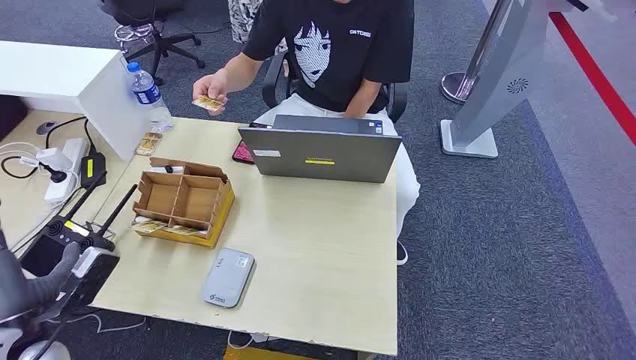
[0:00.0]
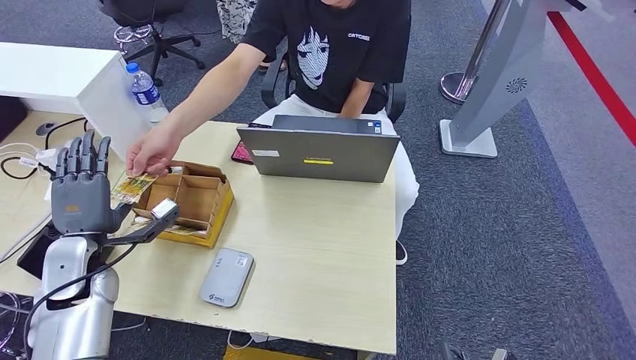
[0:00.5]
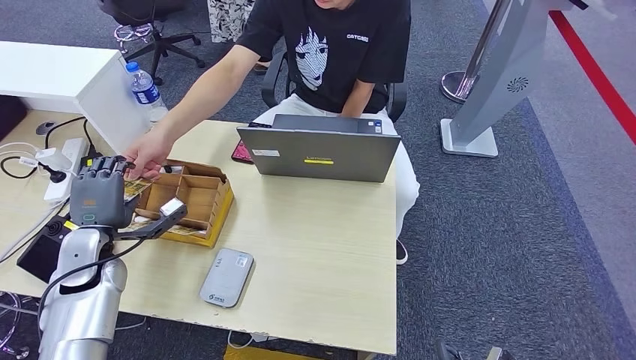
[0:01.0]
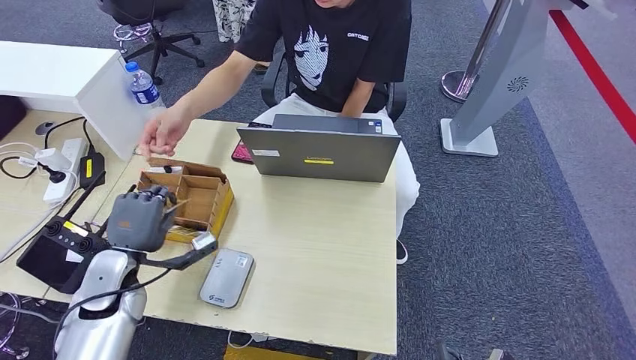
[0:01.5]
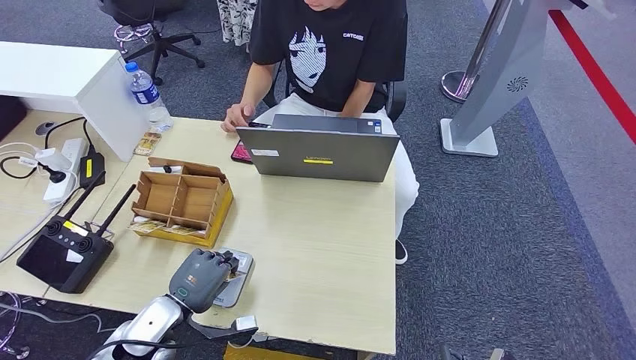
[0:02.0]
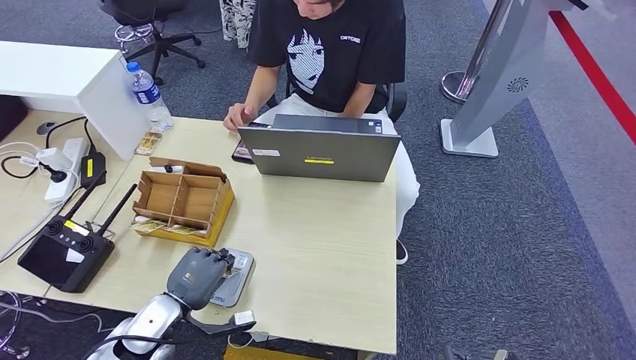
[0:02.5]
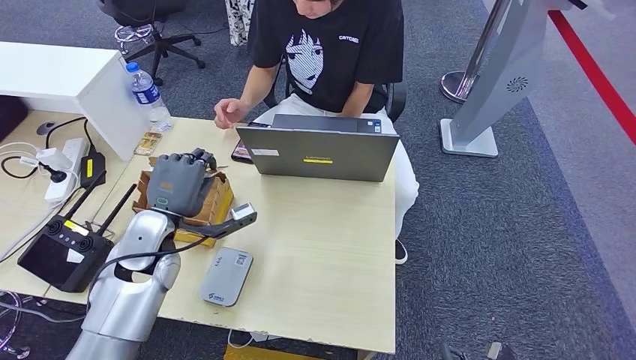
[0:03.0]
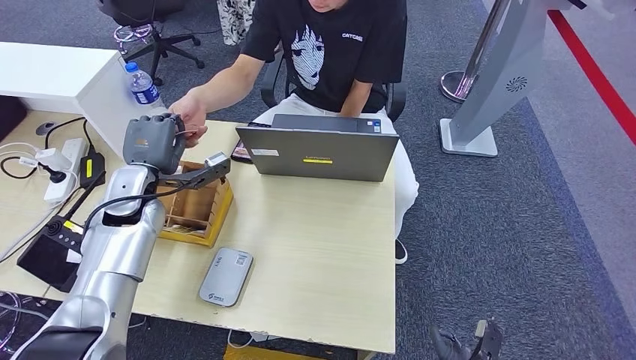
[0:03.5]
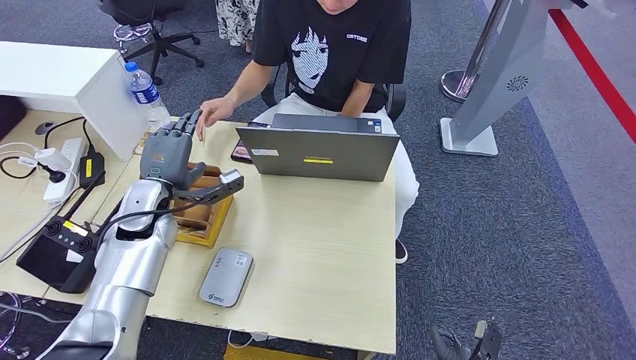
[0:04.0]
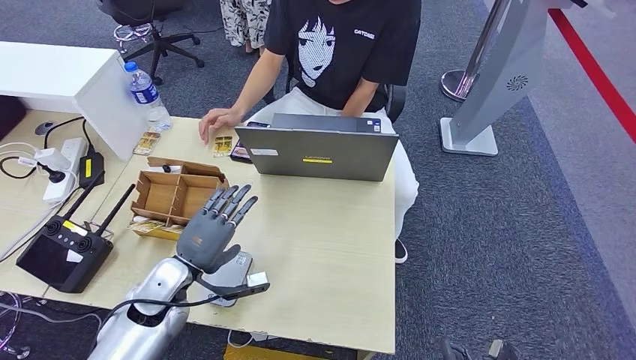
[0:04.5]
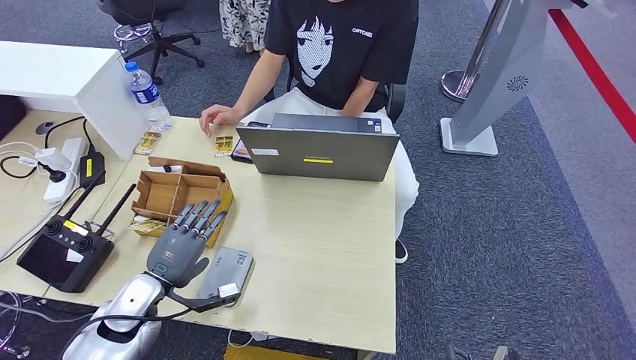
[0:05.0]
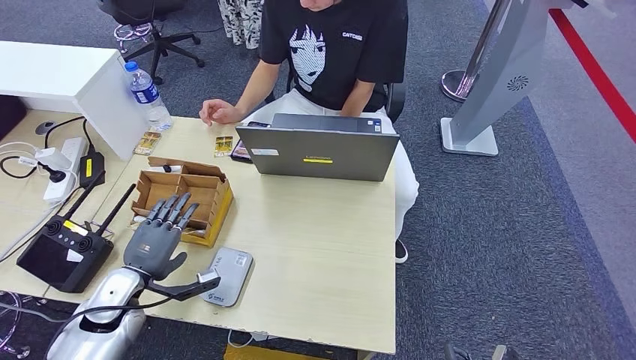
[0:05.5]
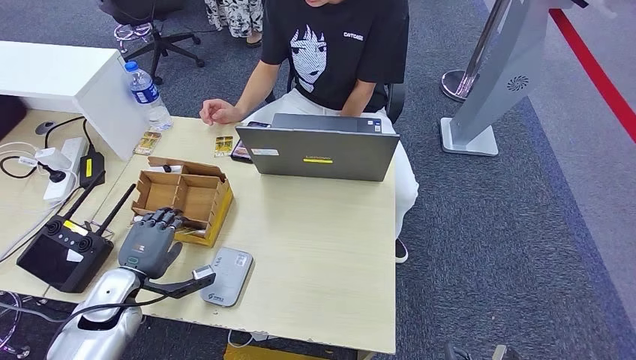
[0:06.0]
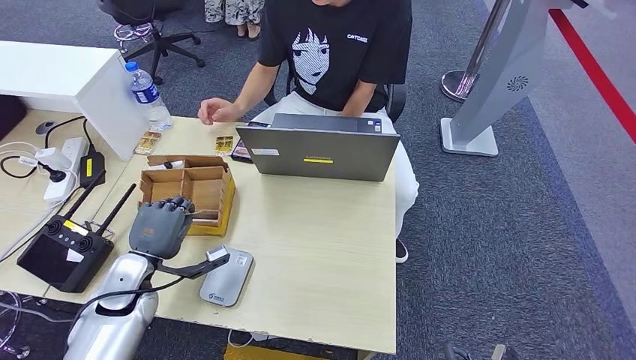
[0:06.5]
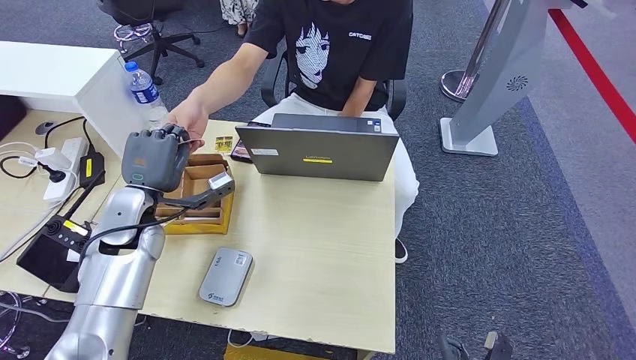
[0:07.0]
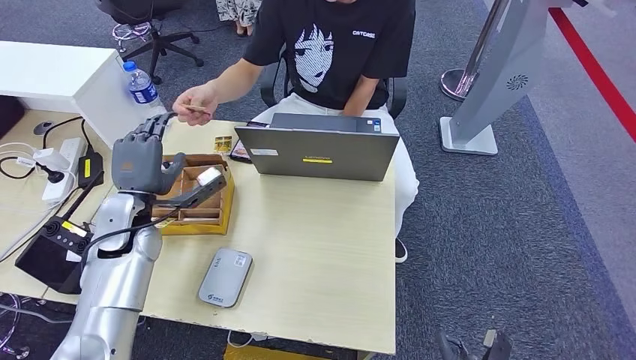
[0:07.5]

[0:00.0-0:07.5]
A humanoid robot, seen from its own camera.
Step, 0:00.0 to 0:01.0: Take the ID card from the person's hand.
Step, 0:03.0 to 0:03.5: Hand the ID card to the person.
Step, 0:05.5 to 0:06.5: Pick up the room key from the key card box.
0:02.0 to 0:04.0: The left hand moves forward and upward, some 20 cm.
0:04.0 to 0:05.5: The left hand travels backward, downward and to the left by roughly 20 cm.
0:05.5 to 0:07.5: The left hand heads upward and forward, covering some 15 cm.

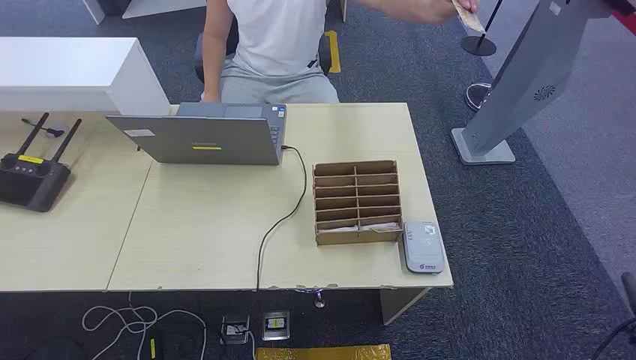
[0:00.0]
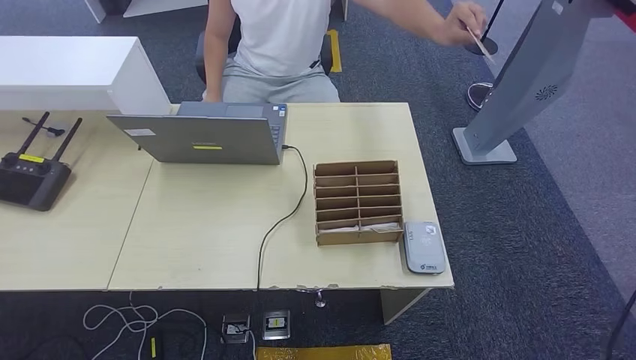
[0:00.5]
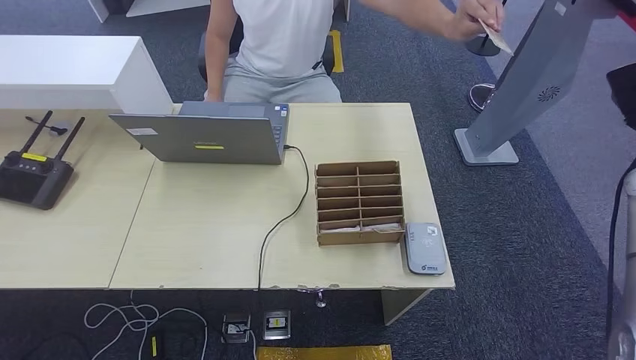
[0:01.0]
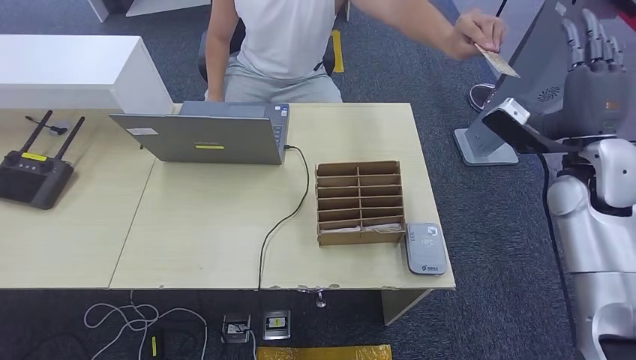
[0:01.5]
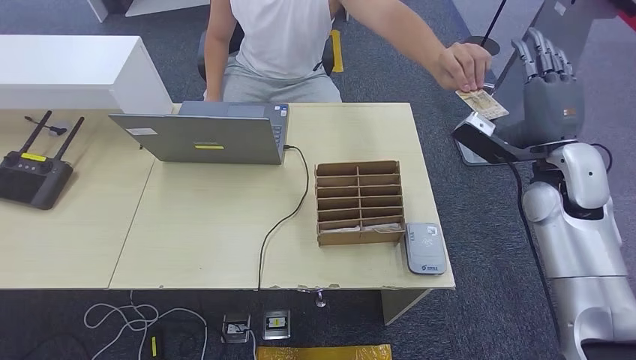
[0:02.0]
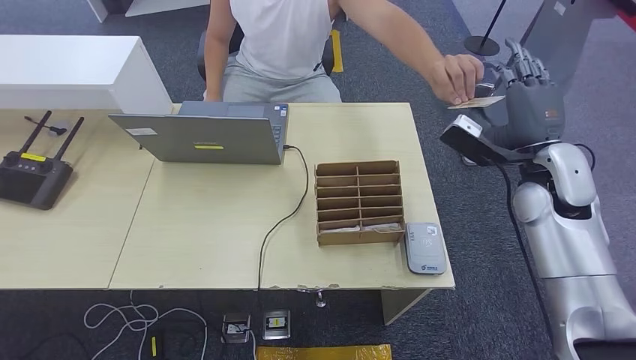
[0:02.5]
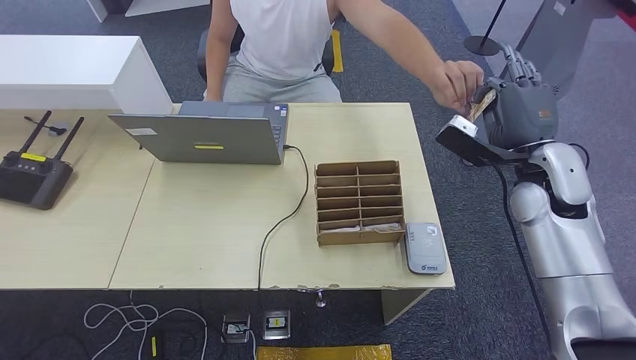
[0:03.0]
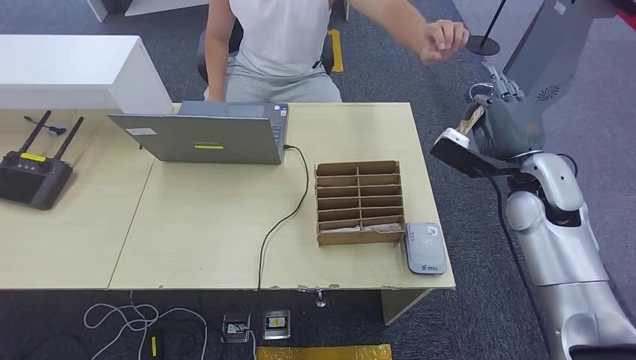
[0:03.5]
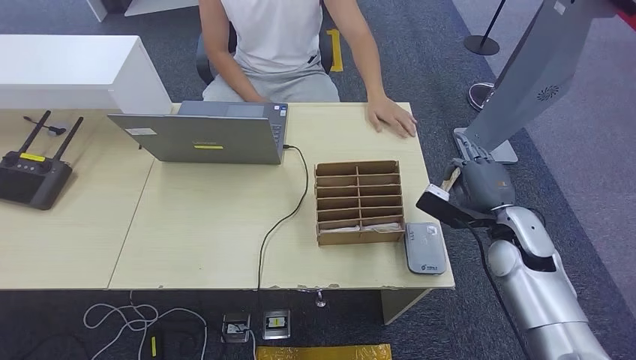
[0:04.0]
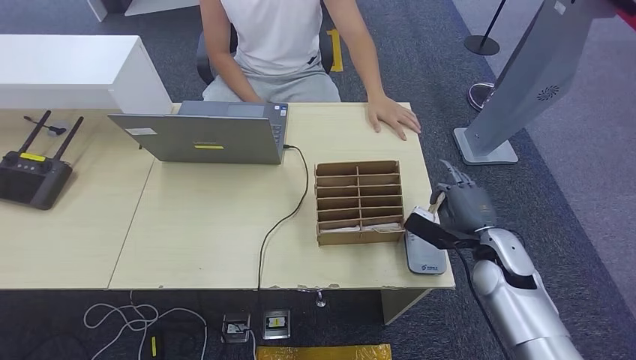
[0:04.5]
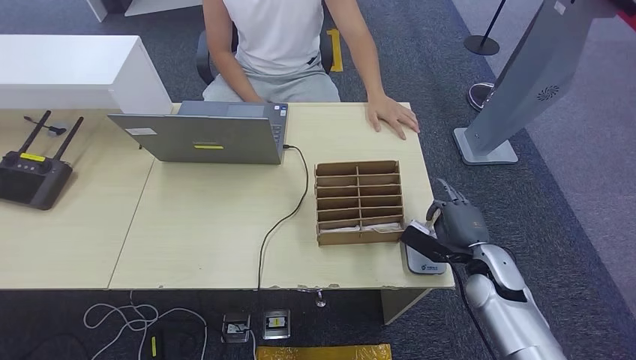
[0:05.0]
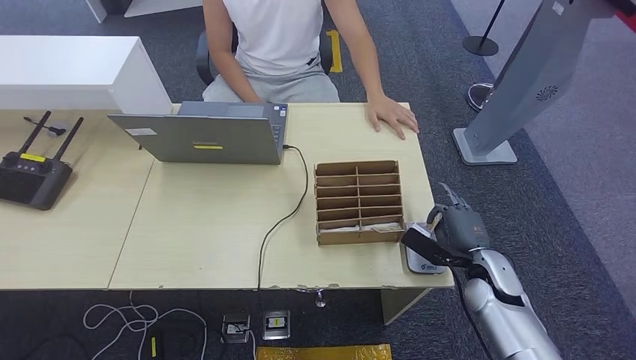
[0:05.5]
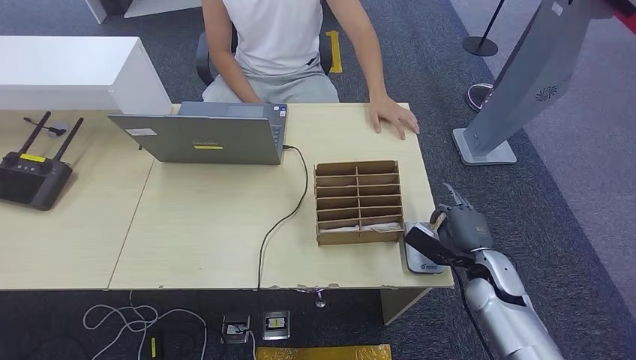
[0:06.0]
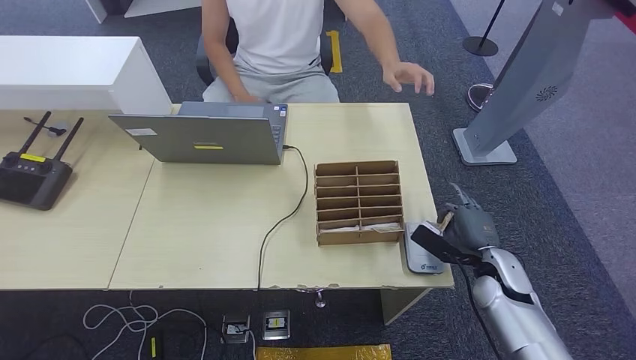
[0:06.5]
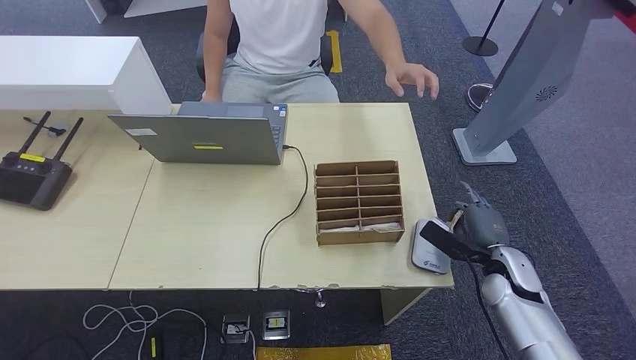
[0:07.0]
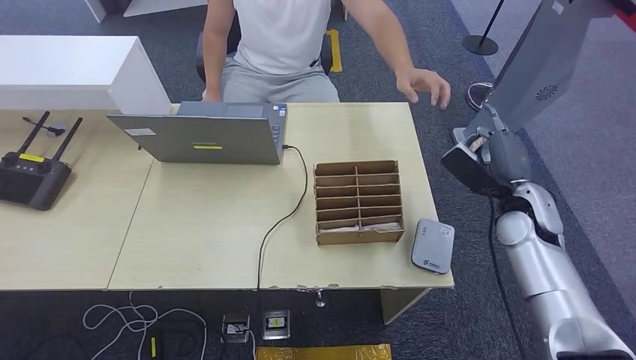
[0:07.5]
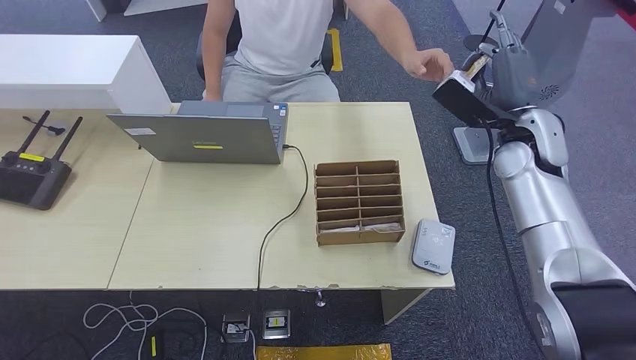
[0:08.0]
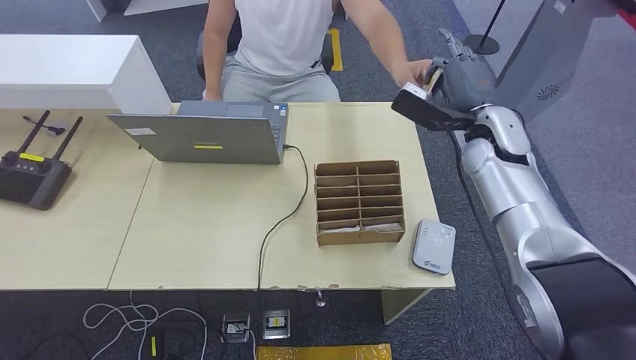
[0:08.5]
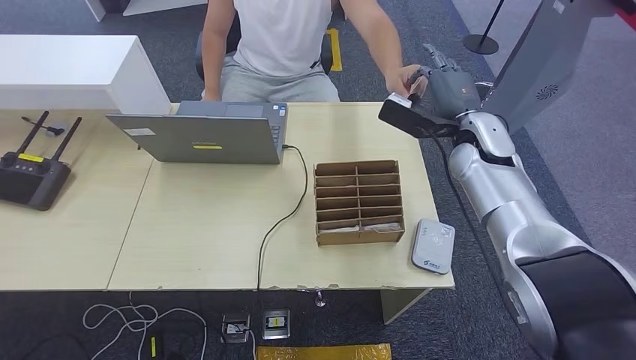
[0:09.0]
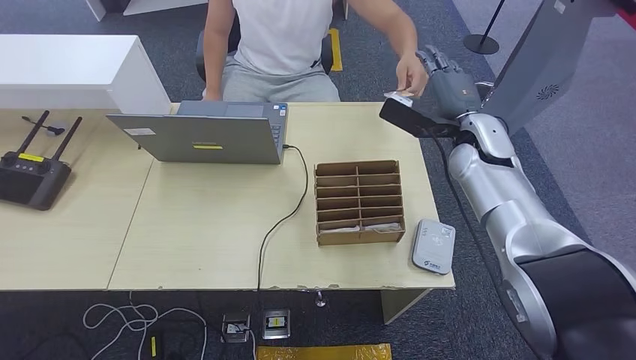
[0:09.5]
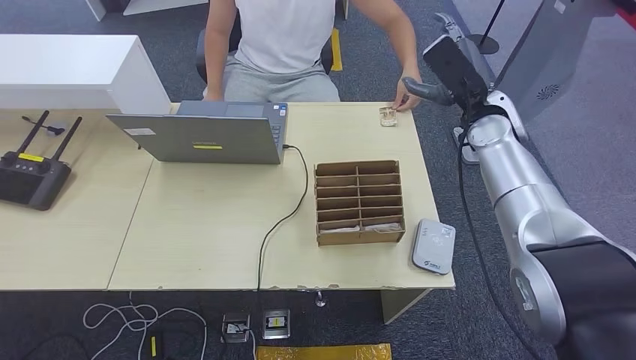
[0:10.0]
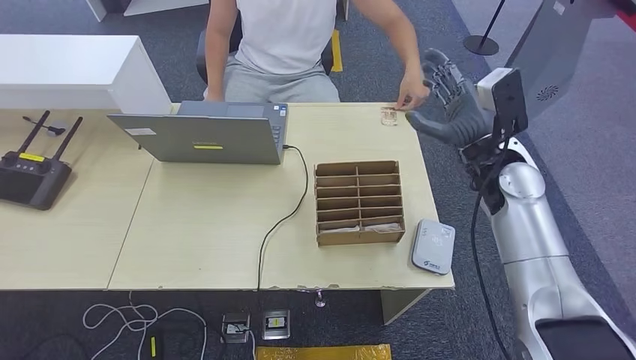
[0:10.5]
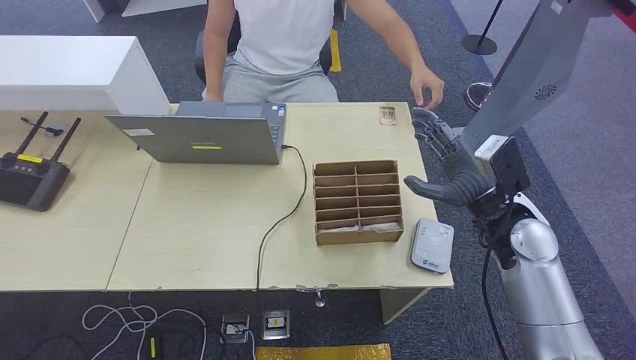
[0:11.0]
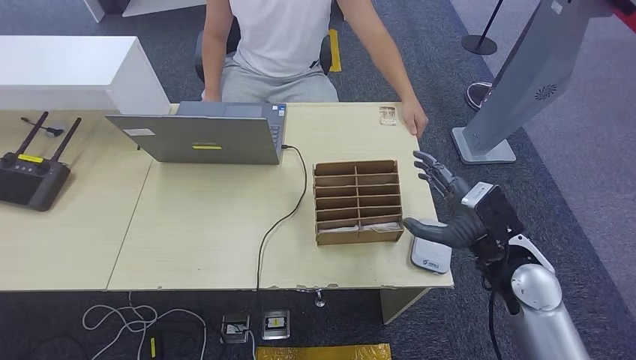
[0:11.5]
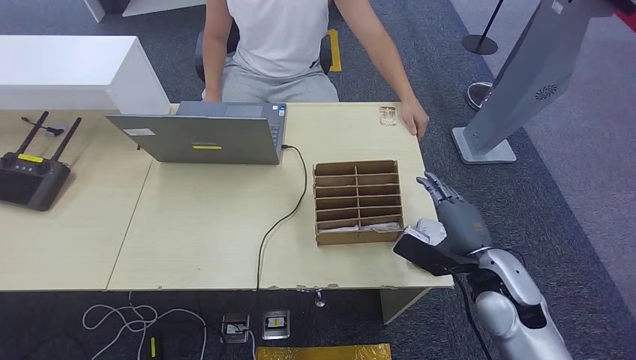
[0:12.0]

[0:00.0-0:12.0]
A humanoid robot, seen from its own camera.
Step, 0:00.0 to 0:03.5: Take the ID card from the person's hand.
Step, 0:04.0 to 0:06.5: Place the ID card on the card reader.
Step, 0:07.0 to 0:09.0: Hand the ID card to the person.
0:02.0 to 0:04.0: The right hand goes about 10 cm downward.
0:04.0 to 0:06.0: The right hand is displaced downward by approximately 10 cm.
0:06.0 to 0:08.0: The right hand heads upward and forward, covering roughly 25 cm.
0:08.0 to 0:10.0: The right hand moves roughly 5 cm.
0:10.0 to 0:12.0: The right hand goes some 25 cm backward and downward.
